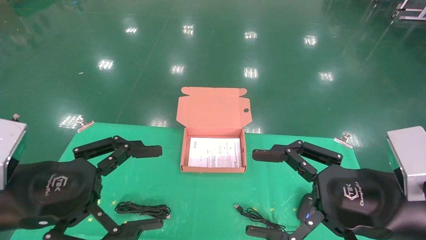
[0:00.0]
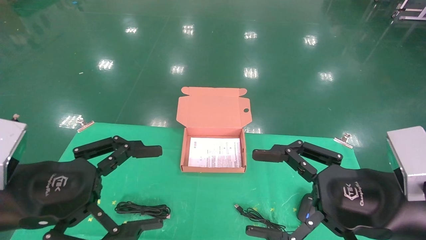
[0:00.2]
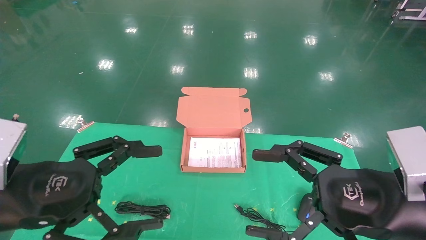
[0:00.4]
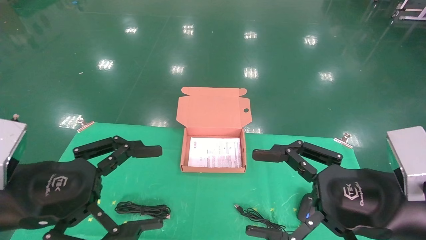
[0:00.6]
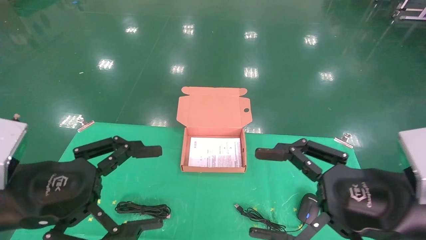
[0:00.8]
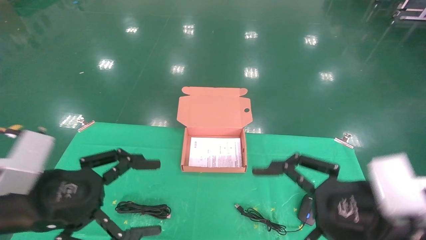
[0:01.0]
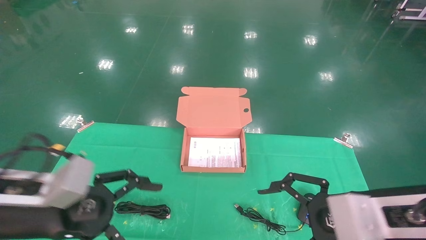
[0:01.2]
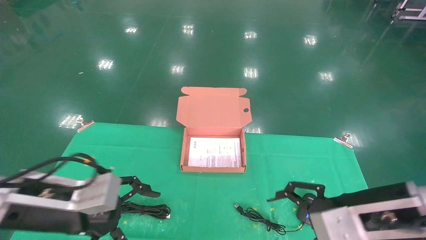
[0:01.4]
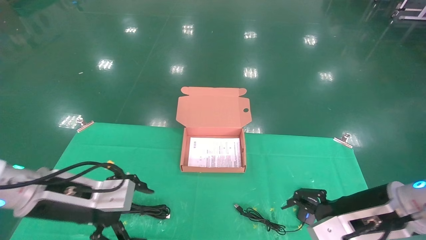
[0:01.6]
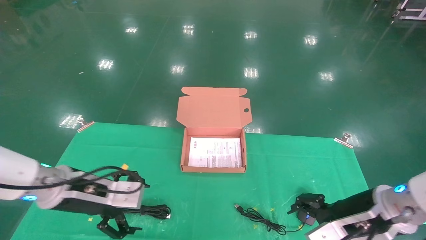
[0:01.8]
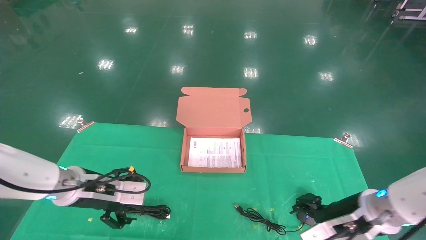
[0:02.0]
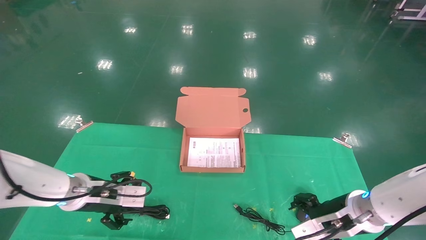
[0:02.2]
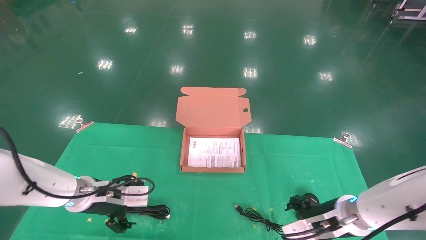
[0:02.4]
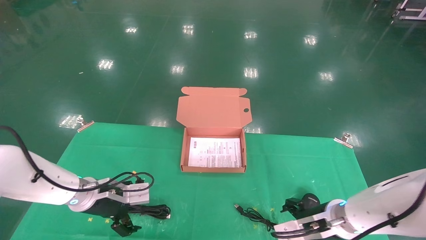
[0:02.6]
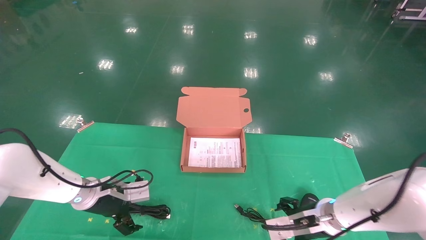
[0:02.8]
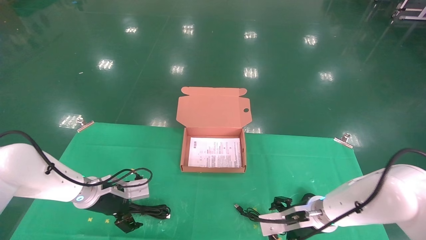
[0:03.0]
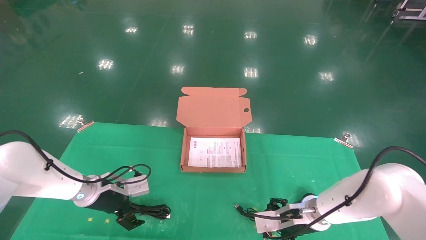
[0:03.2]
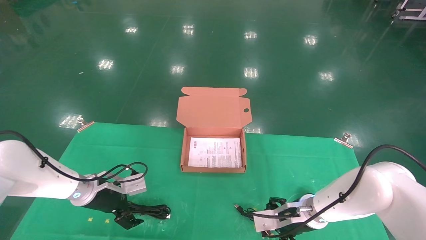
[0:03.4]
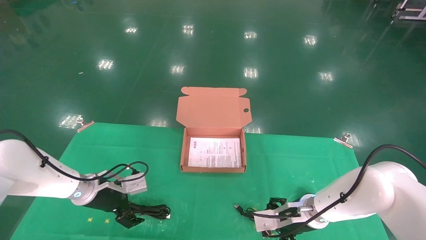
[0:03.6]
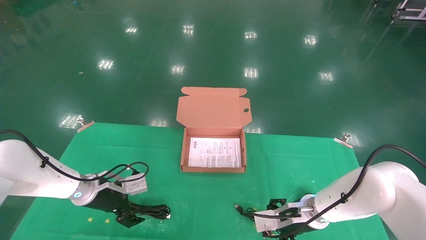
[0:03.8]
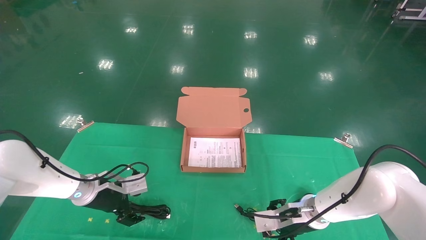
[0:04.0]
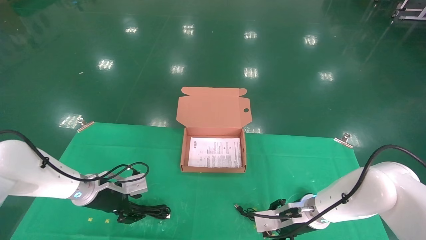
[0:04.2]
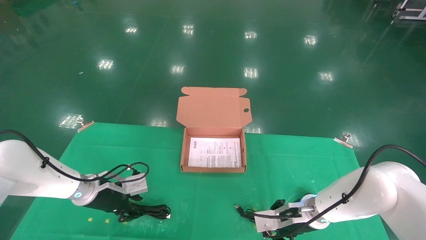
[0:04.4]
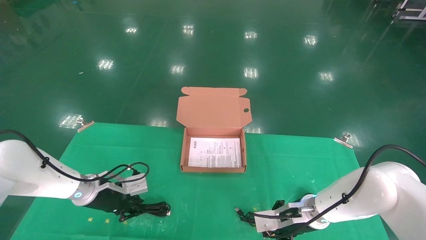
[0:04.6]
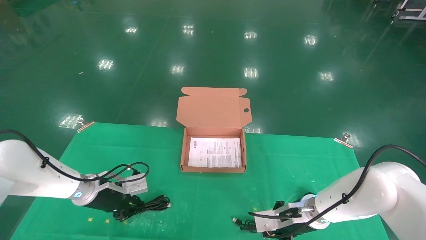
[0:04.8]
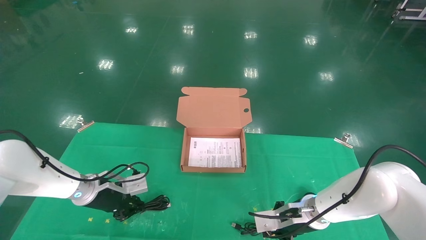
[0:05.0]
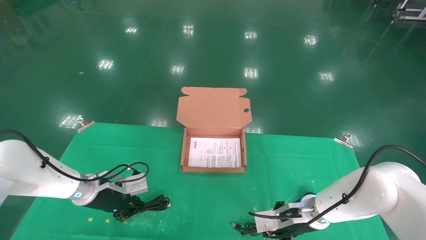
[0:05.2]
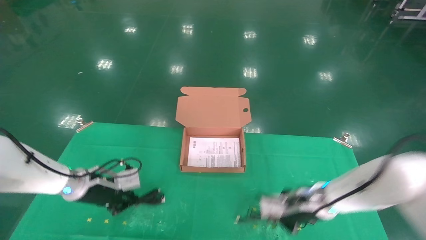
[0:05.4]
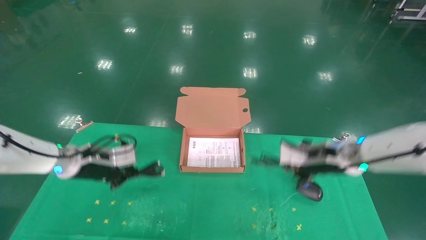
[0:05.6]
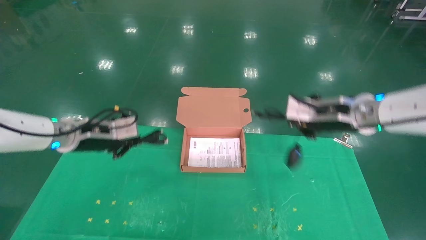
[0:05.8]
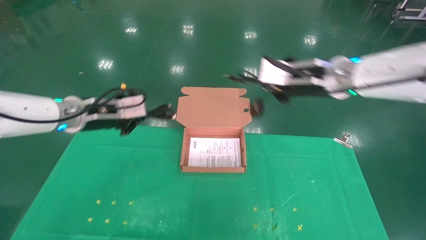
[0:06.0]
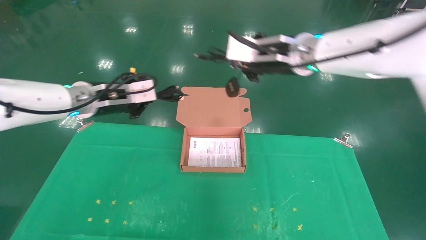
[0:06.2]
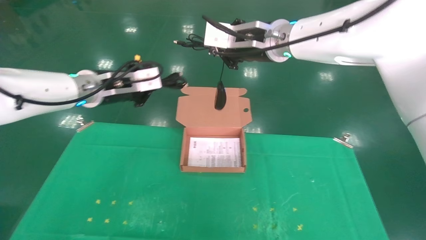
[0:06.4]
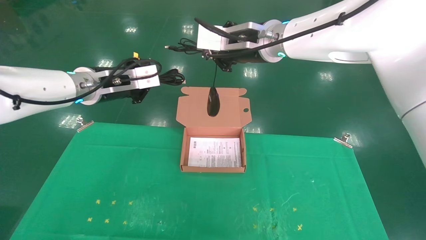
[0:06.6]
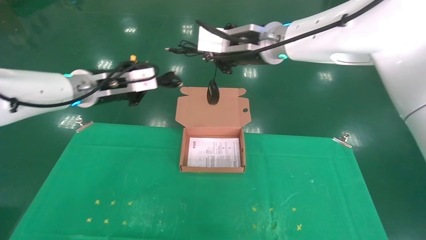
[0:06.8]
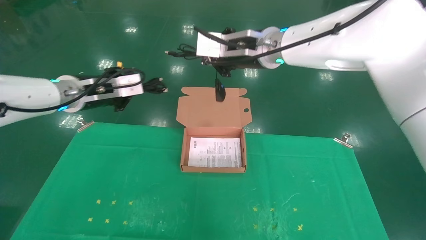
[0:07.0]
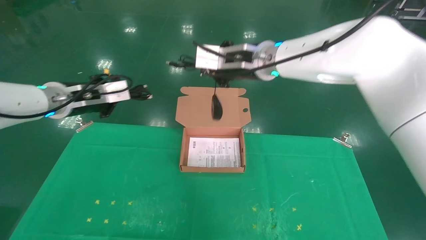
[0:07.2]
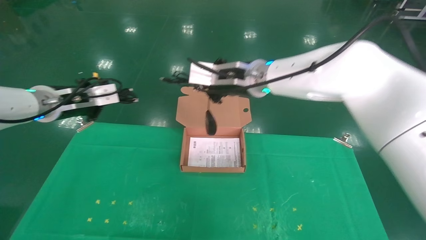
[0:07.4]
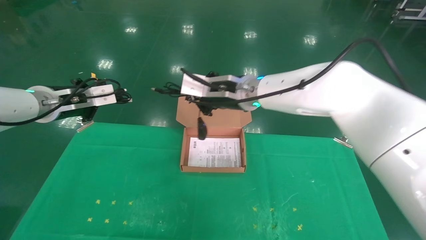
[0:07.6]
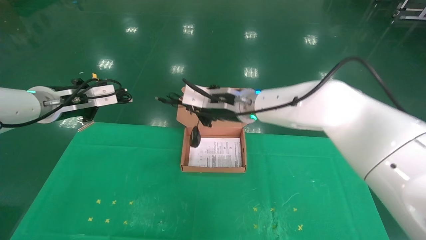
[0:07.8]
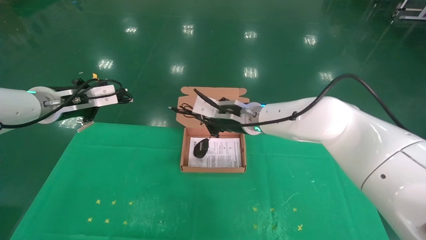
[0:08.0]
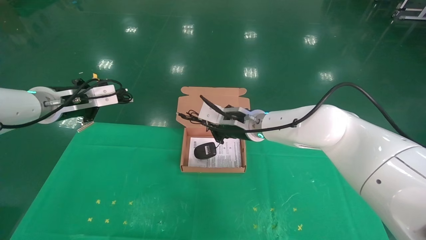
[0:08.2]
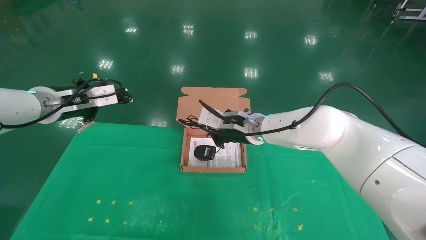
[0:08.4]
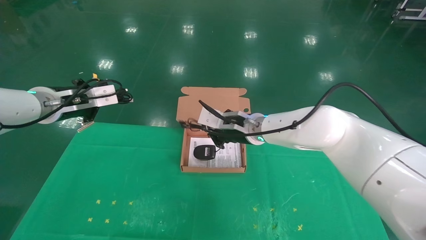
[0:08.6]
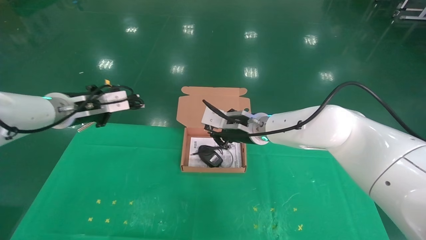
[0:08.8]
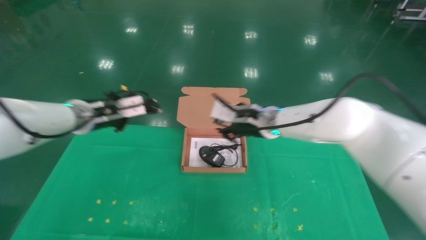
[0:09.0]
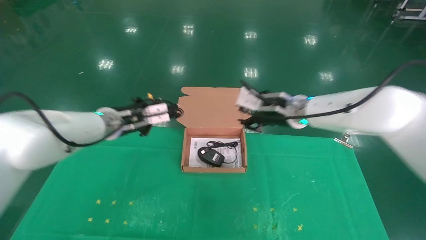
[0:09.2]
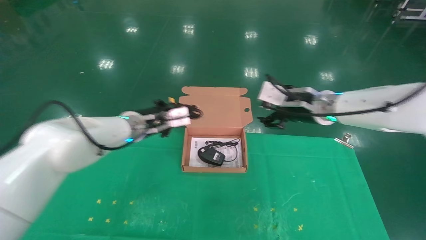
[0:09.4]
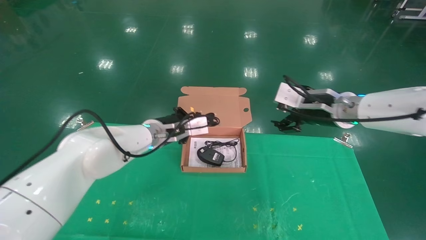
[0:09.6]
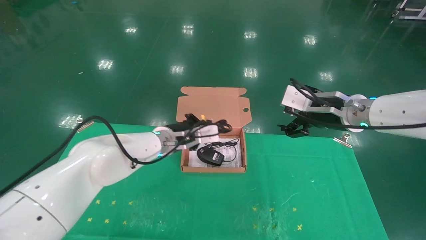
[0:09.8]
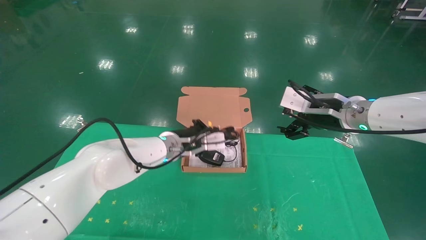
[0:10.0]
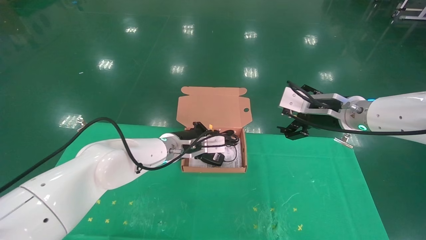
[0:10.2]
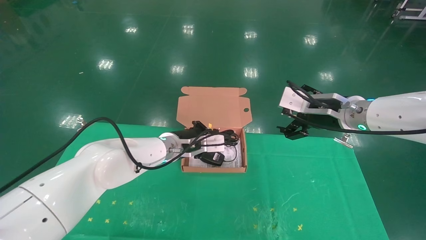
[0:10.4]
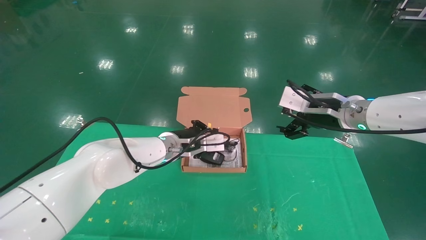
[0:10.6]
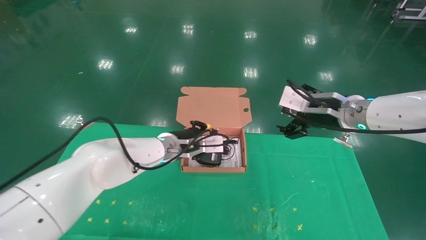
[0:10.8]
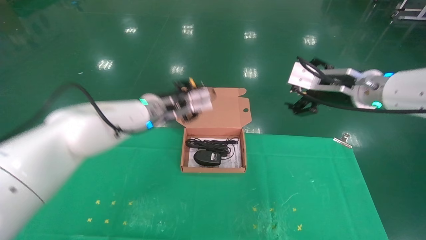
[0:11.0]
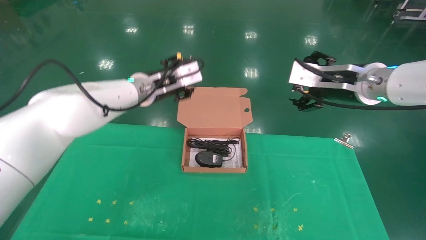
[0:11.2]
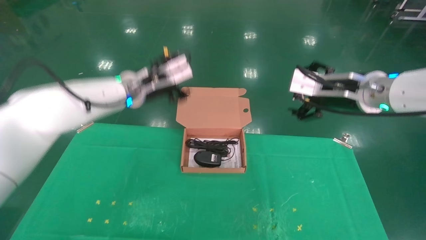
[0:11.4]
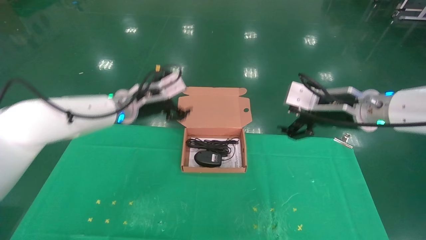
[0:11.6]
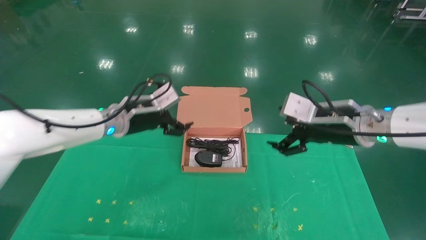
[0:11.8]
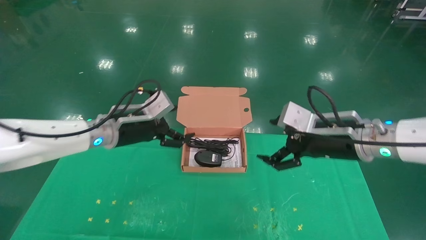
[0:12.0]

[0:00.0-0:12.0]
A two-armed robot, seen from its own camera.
Task of the whole recording: grasp data cable left put into box grasp mouse right put into box.
Step, 0:01.0 to 0:05.6: Grab and pick up both the mouse and power cord from the accessory packaging area at the same time.
Step, 0:05.8 to 0:10.8: Place the mouse and power cord into the box.
0:00.0 to 0:01.6: Both grippers move forward and downward, about 10 cm.
0:01.6 to 0:03.0: The left gripper heads forward and downward, covering approximately 15 cm; the right gripper is displaced forward, downward and to the left by some 15 cm.
0:03.0 to 0:04.4: The left gripper closes. Meanwhile the right gripper closes.
0:04.4 to 0:06.0: The right gripper heads upward, covering about 30 cm, and closes, while the left gripper travels upward by about 20 cm, and closes.
0:06.0 to 0:07.6: The left gripper moves to the left, about 5 cm. The right gripper heads to the left, covering approximately 15 cm.
0:07.6 to 0:09.0: The right gripper travels to the right and downward by about 10 cm. The left gripper is displaced to the right by roughly 5 cm.
0:09.0 to 0:10.4: The right gripper shifts about 15 cm to the right and backward, and opens. Meanwhile the left gripper is displaced to the right and downward by some 20 cm.
0:10.4 to 0:12.0: The left gripper travels to the left, upward and backward by about 15 cm, and opens its fingers. The right gripper is displaced backward by roughly 5 cm.

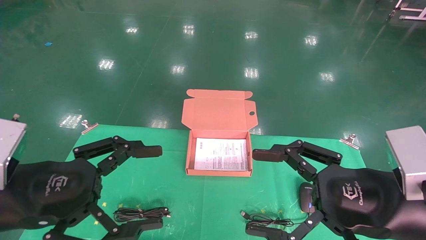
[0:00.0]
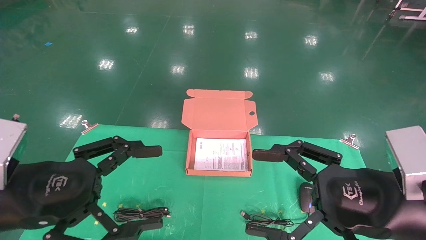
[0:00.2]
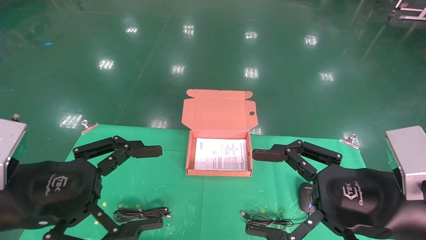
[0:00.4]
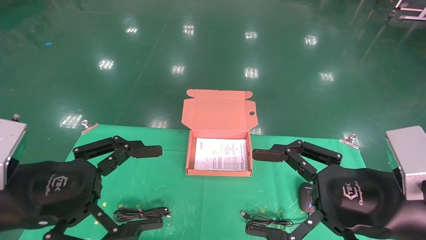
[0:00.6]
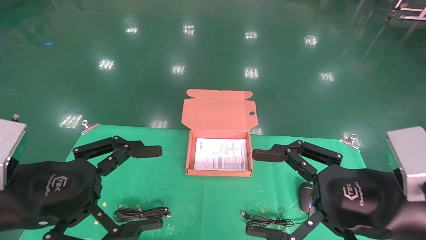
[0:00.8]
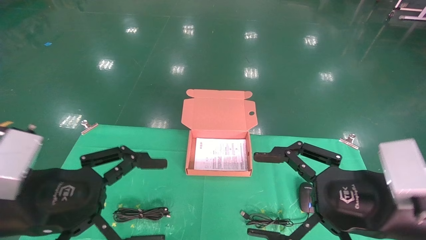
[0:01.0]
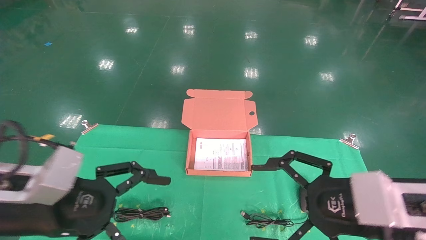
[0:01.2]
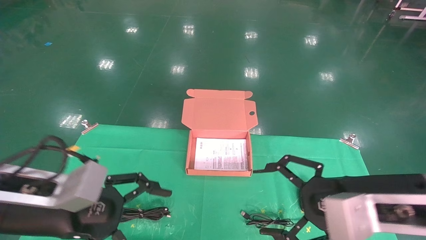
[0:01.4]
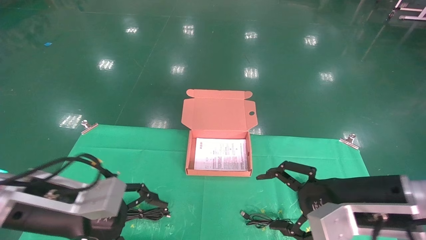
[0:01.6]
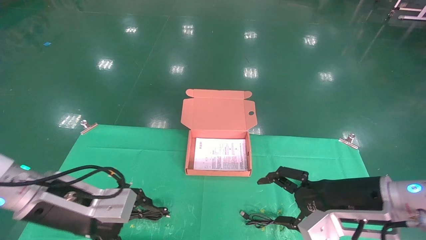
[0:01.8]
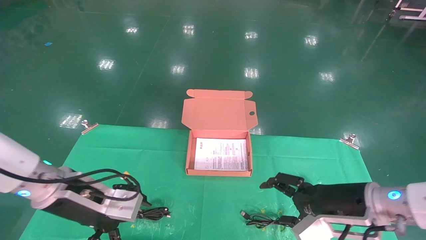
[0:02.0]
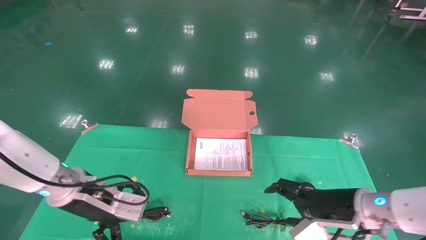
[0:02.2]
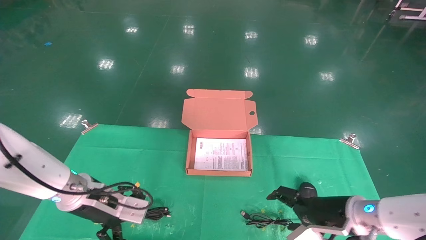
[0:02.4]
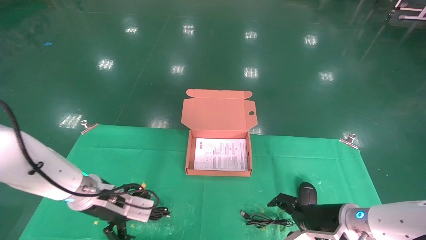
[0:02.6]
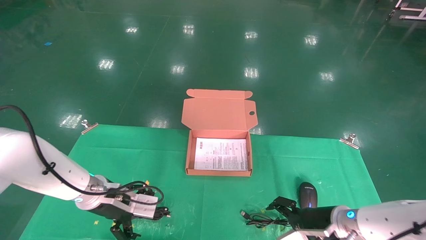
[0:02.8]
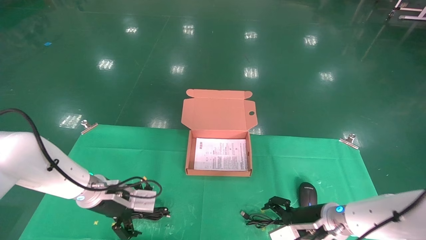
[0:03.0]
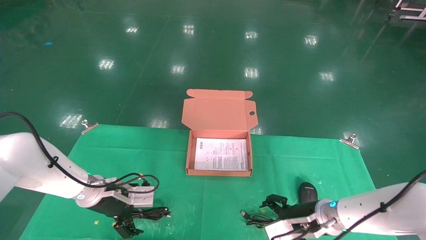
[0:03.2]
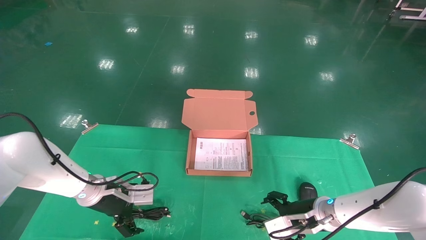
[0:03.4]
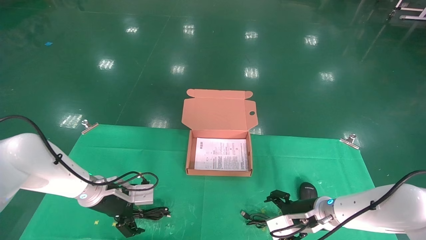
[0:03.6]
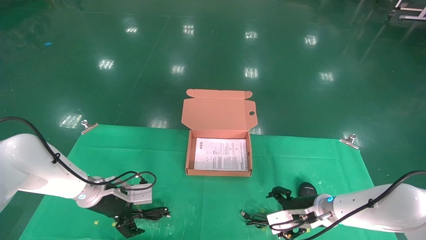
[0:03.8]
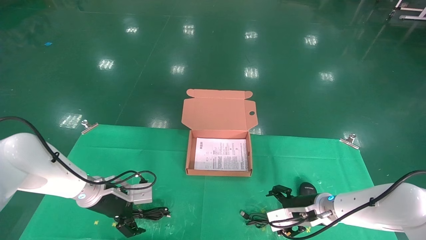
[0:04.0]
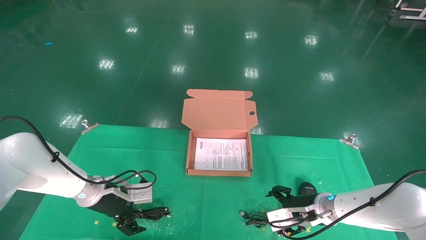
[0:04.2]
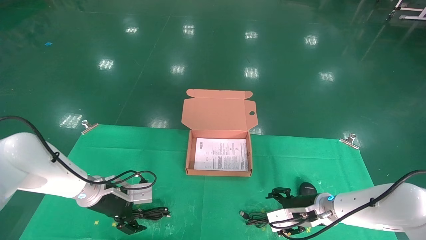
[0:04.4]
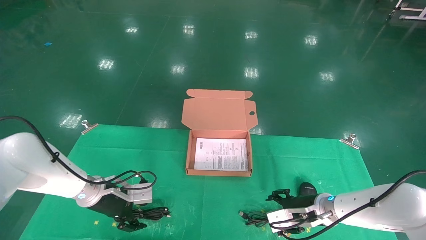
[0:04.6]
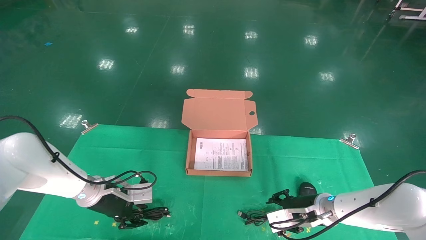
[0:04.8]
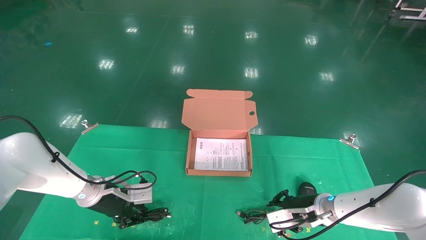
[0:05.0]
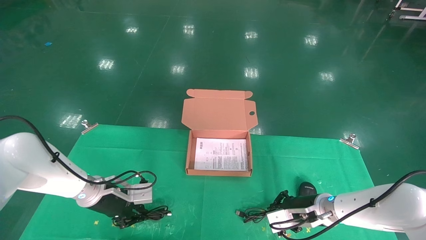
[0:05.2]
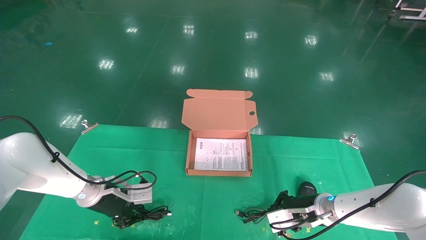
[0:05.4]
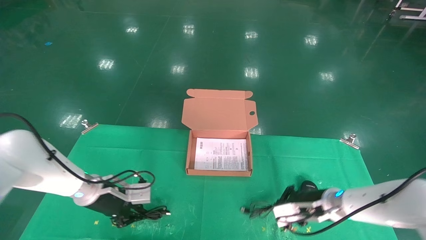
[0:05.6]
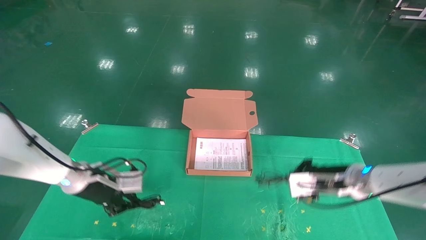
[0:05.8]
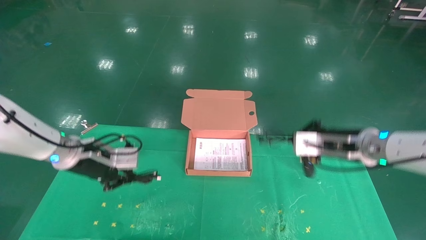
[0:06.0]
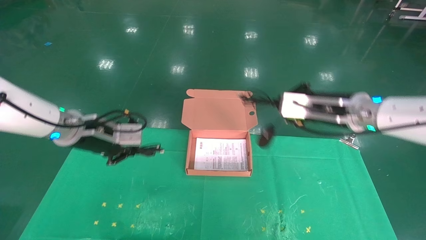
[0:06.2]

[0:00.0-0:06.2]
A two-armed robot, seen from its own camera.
Task of the whole recording: grasp data cable left put into box grasp mouse right put into box.
Step, 0:00.8 to 0:05.6: Grab and pick up both the mouse and power cord from the accessory packaging area at the same time.
0:00.0 to 0:01.6: Both grippers travel together forward, roughly 5 cm.
0:01.6 to 0:03.2: The left gripper goes approximately 20 cm forward and downward. The right gripper heads downward and forward, covering roughly 20 cm.
0:03.2 to 0:04.6: There are only small adjustments of the grippers.
0:04.6 to 0:06.2: The grippers both shift upward by roughly 20 cm. The right gripper closes up; the left gripper closes up.
